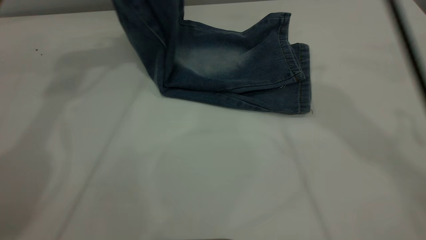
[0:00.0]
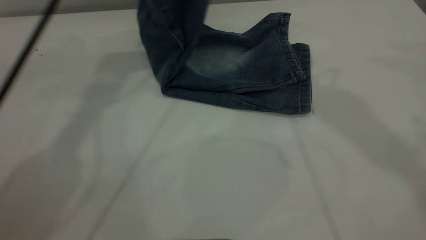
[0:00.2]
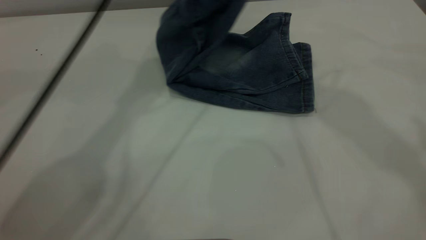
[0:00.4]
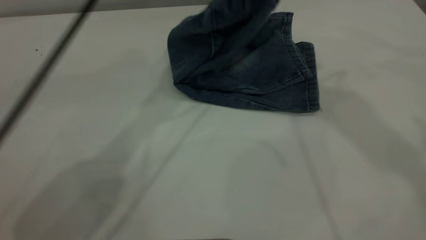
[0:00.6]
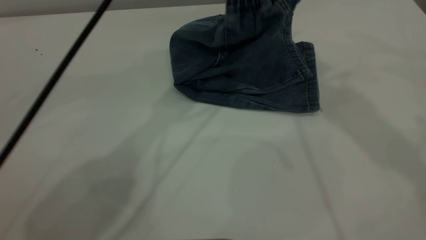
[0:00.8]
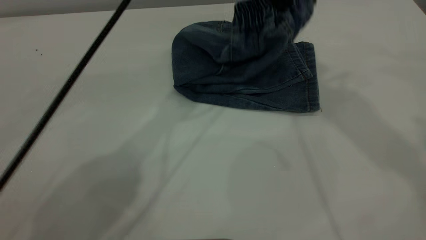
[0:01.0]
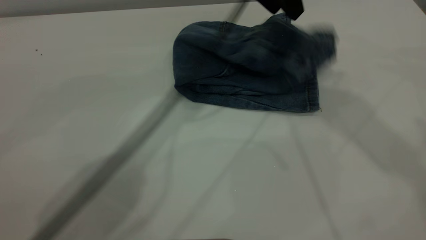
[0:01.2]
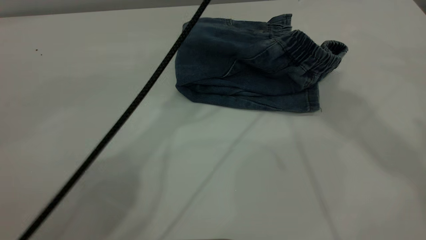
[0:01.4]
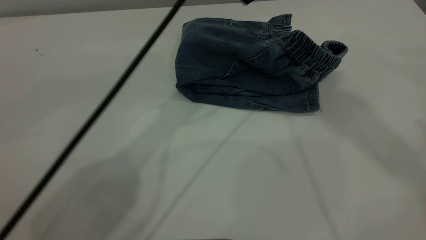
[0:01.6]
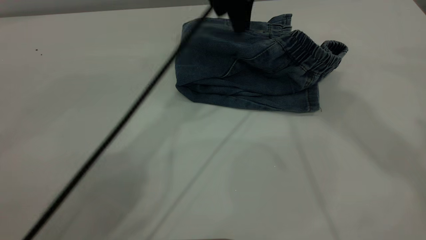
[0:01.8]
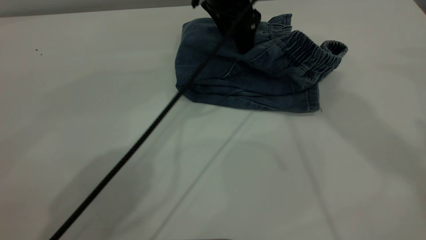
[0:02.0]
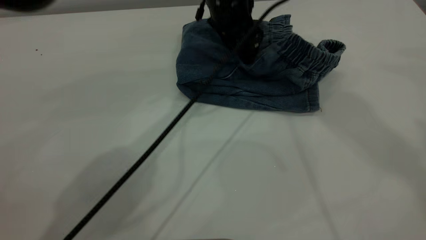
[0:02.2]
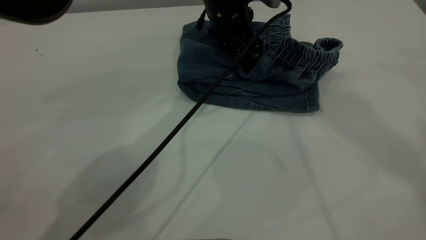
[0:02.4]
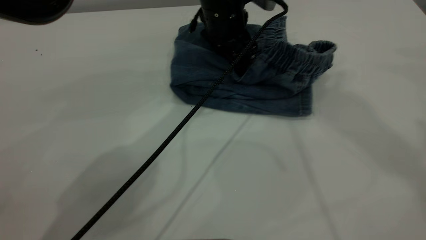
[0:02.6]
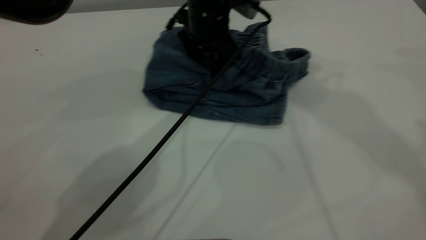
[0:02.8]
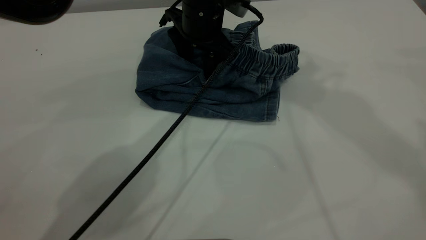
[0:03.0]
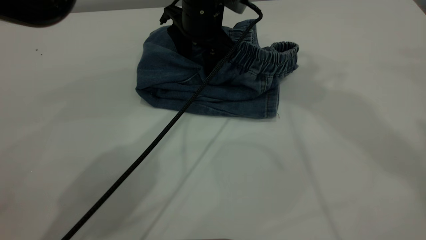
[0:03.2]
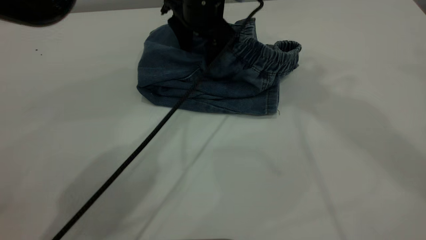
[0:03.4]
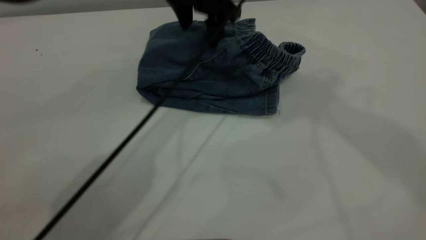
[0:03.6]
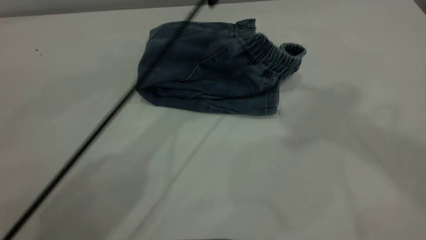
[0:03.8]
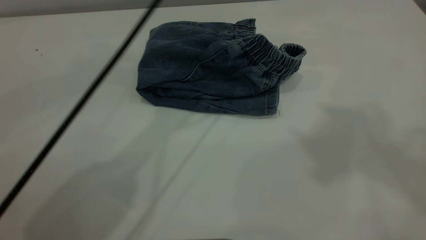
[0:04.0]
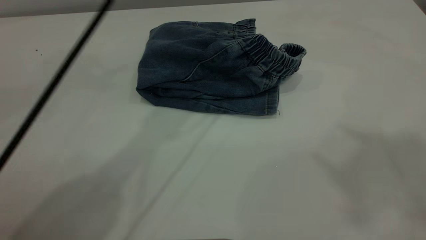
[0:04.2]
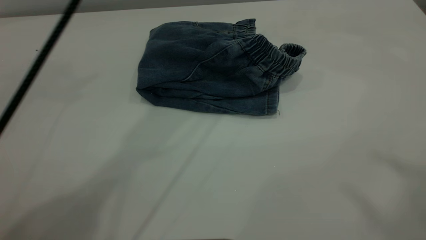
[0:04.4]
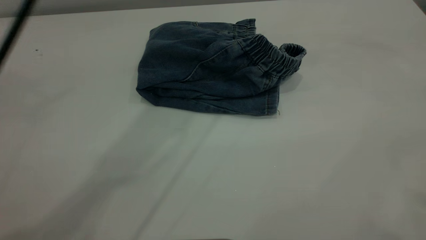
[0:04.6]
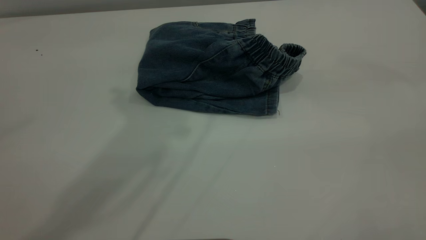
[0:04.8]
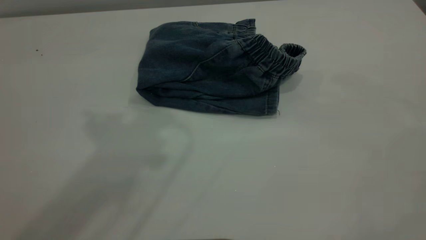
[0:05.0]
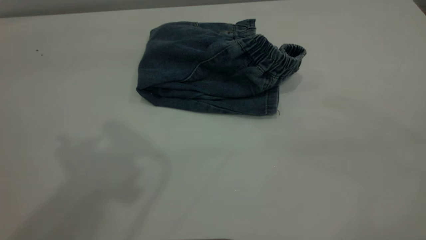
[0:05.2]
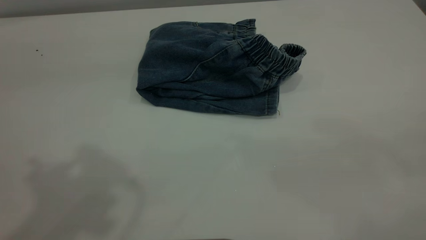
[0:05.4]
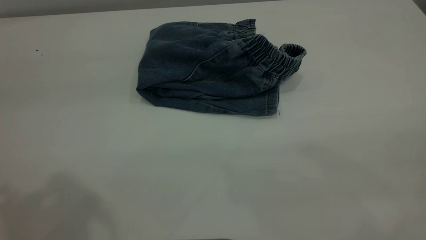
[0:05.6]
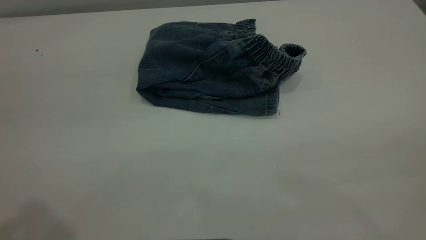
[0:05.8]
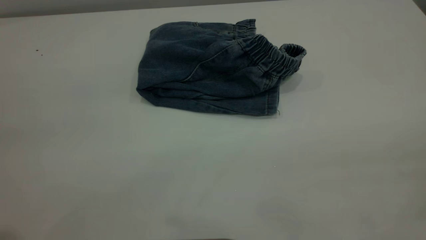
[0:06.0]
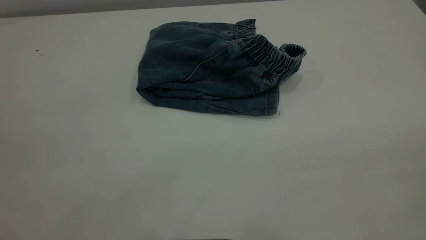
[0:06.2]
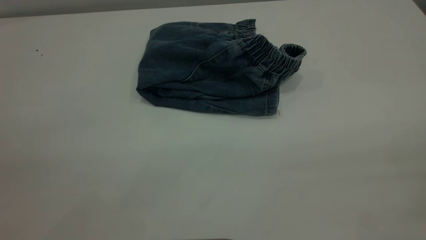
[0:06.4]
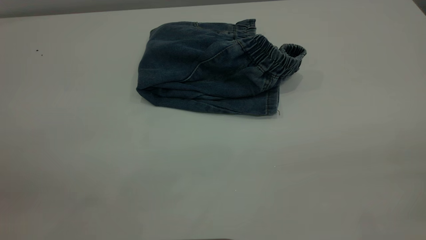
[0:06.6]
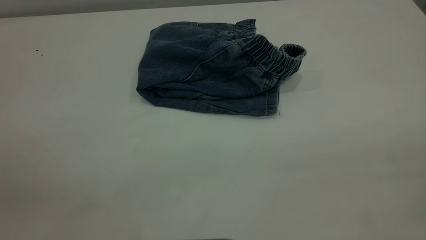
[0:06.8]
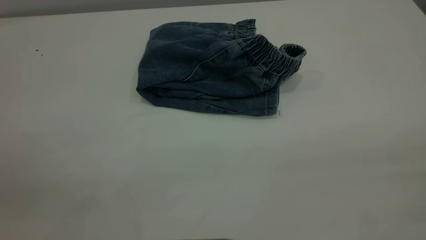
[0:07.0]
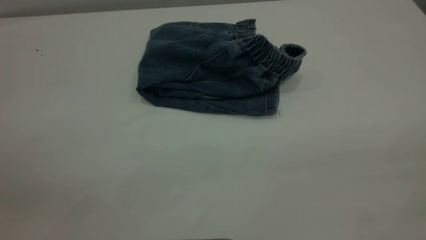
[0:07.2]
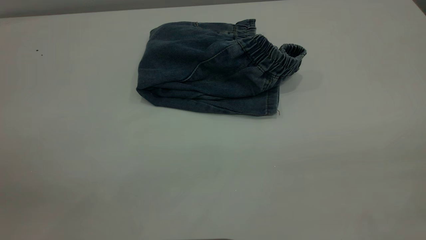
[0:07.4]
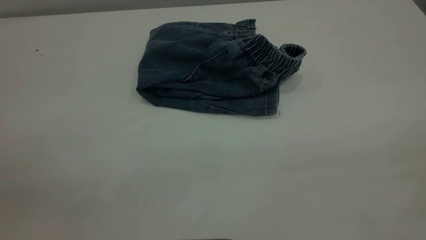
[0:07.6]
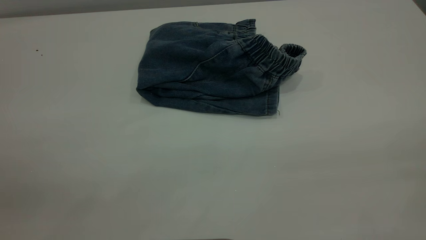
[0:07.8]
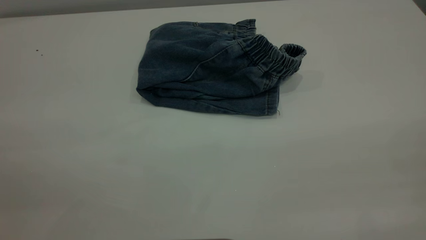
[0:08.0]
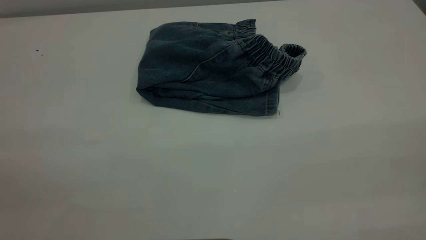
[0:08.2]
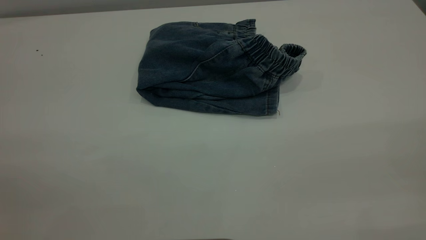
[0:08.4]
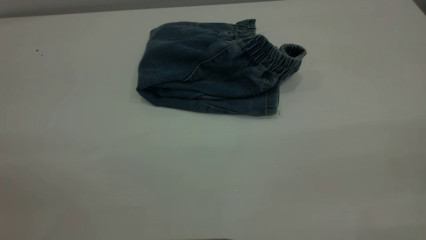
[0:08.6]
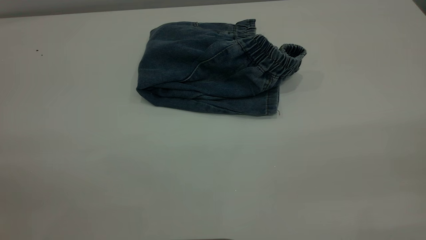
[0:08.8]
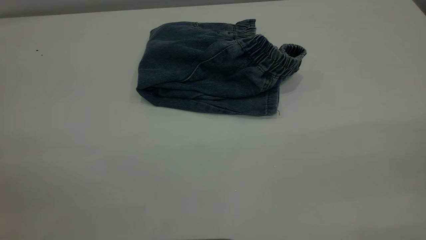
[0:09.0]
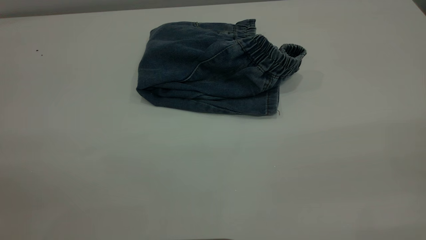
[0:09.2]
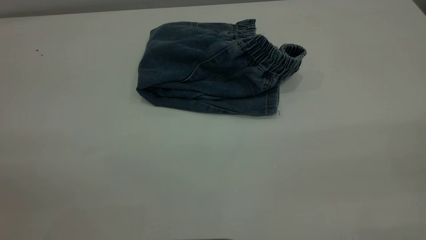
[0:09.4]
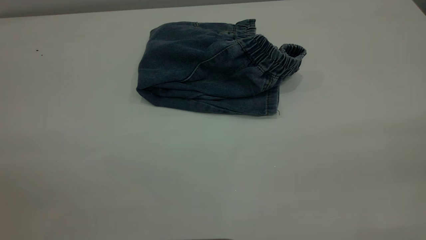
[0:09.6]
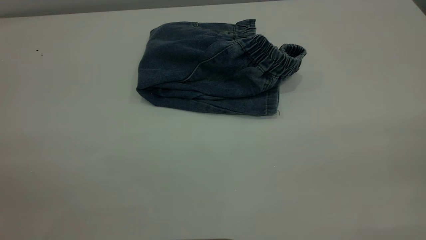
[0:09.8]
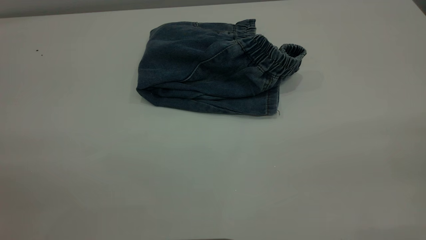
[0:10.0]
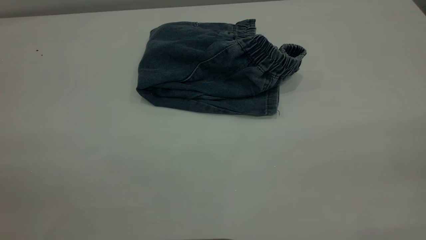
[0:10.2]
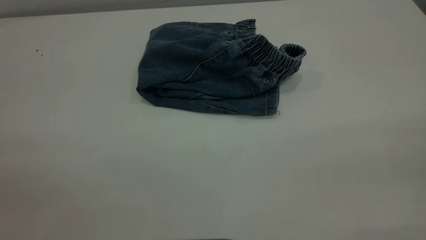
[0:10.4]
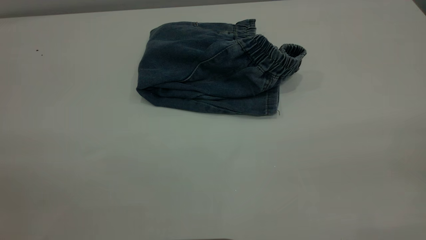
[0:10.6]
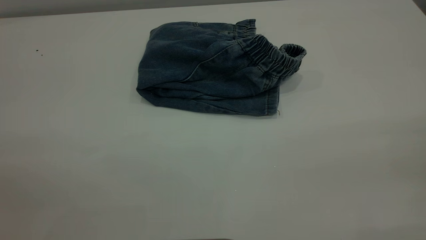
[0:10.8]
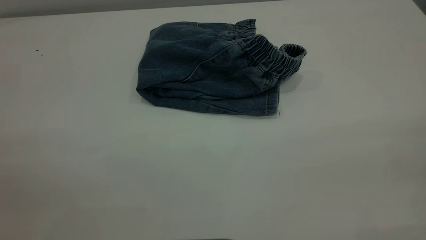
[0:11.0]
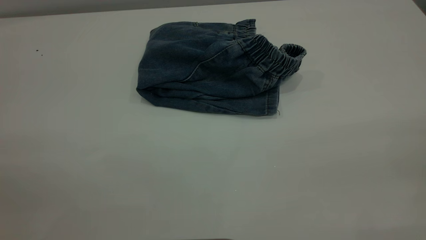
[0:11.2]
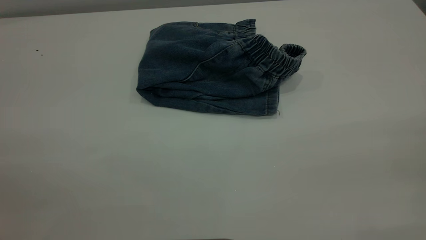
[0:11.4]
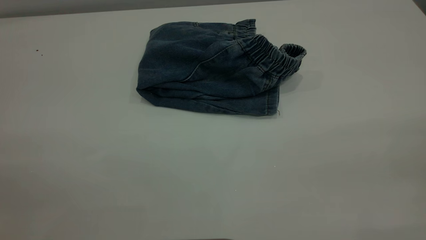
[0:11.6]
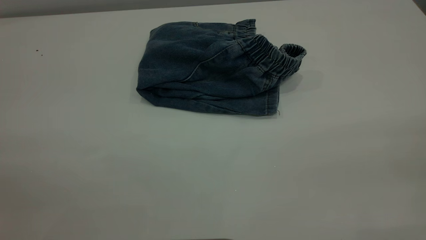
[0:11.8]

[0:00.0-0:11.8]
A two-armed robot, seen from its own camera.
0:00.0 to 0:01.4: The left gripper travels to the right by some 20 cm, and opens up.
0:01.4 to 0:03.0: The left gripper heads downward, covering about 15 cm.
0:03.0 to 0:04.4: The left gripper moves upward, about 30 cm, while the right gripper travels backward and upward by about 30 cm.
0:04.4 to 0:06.0: The left gripper is displaced backward and to the left by approximately 40 cm.
0:10.4 to 0:11.8: Neither gripper changes place.
